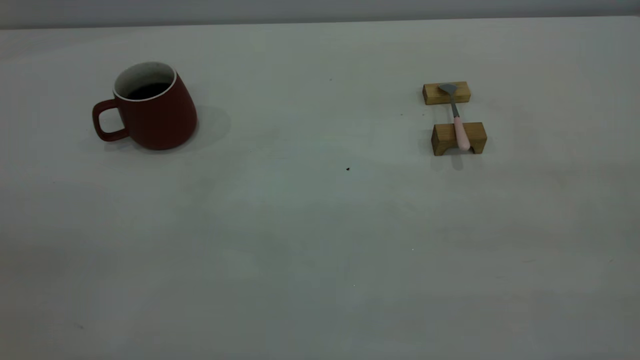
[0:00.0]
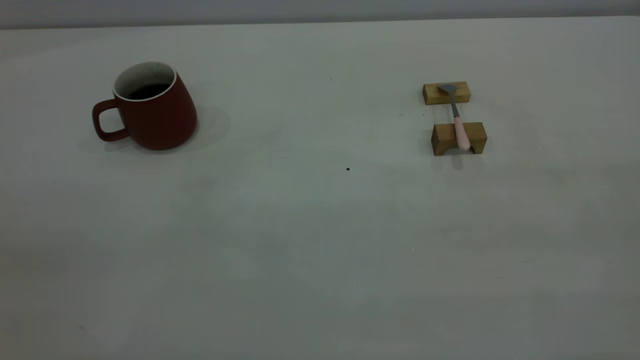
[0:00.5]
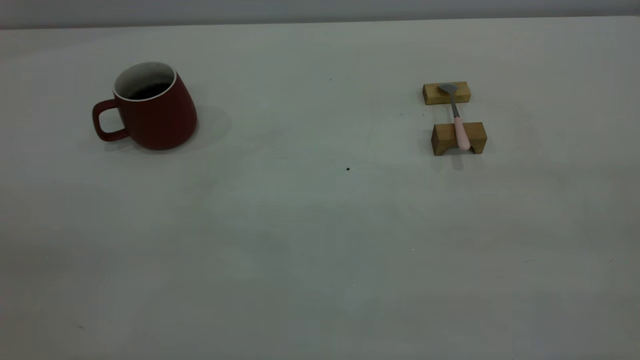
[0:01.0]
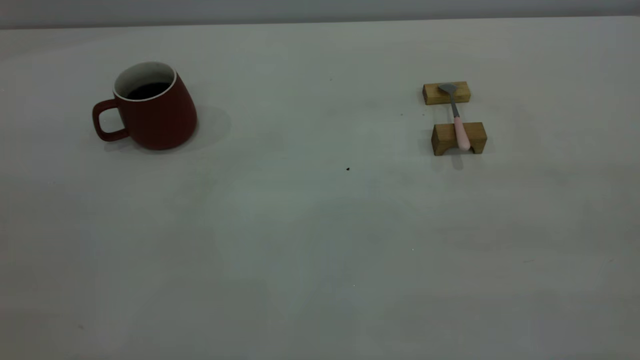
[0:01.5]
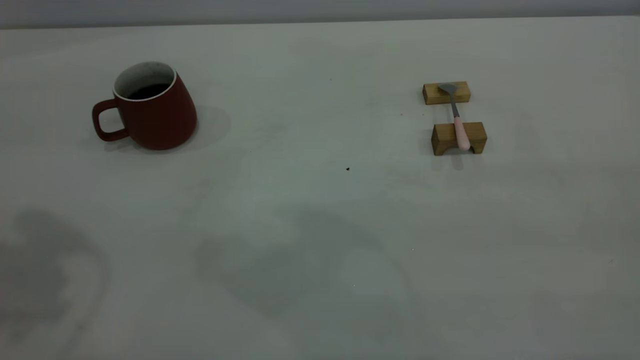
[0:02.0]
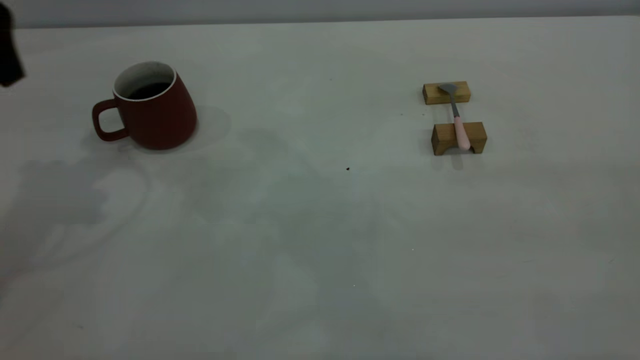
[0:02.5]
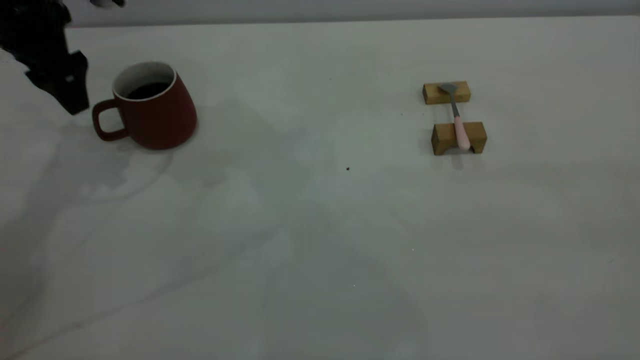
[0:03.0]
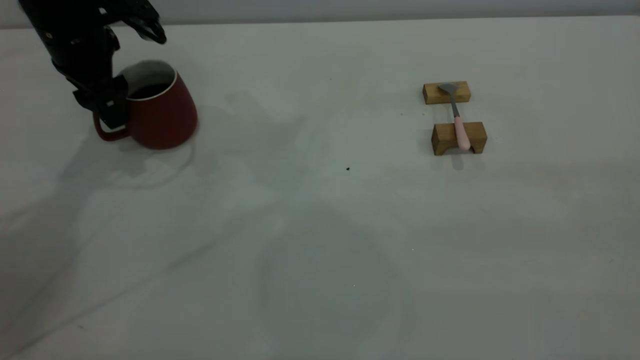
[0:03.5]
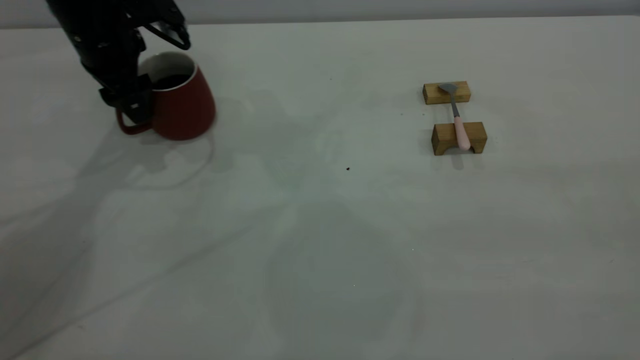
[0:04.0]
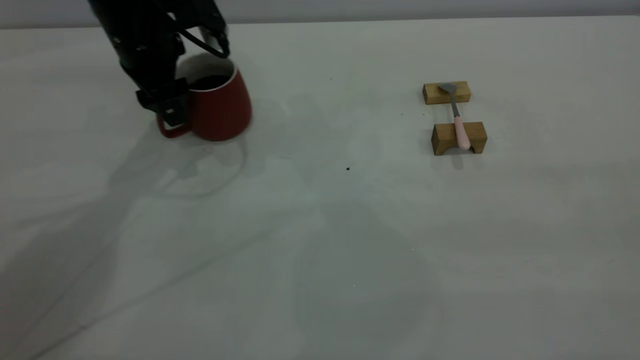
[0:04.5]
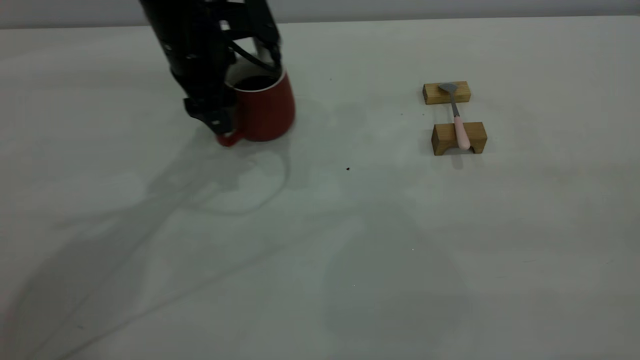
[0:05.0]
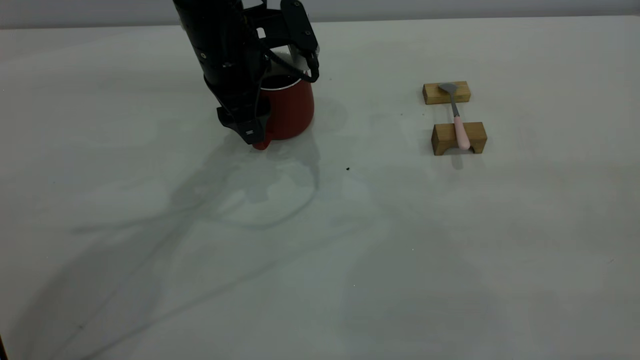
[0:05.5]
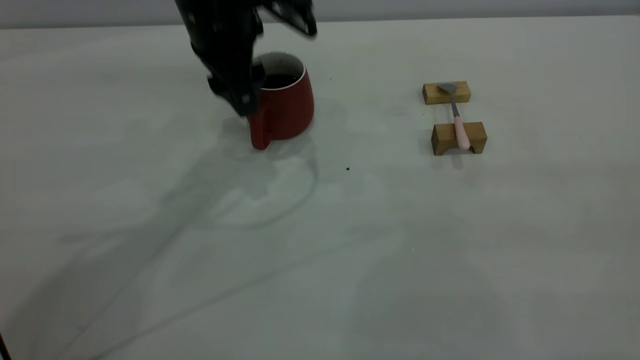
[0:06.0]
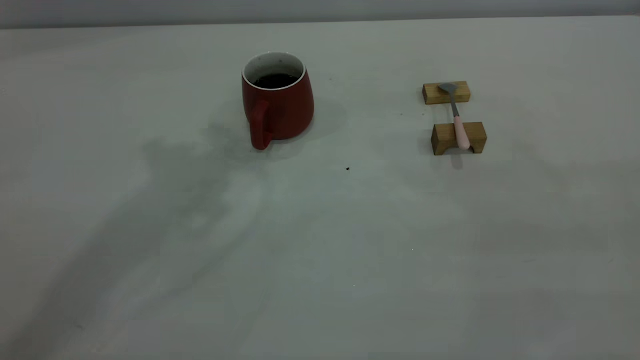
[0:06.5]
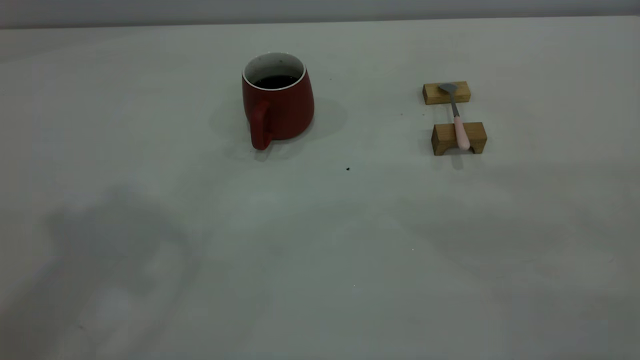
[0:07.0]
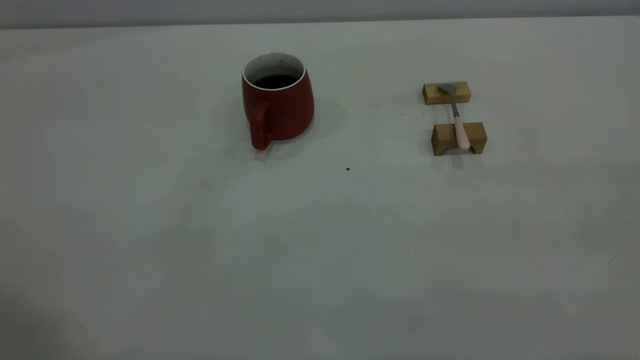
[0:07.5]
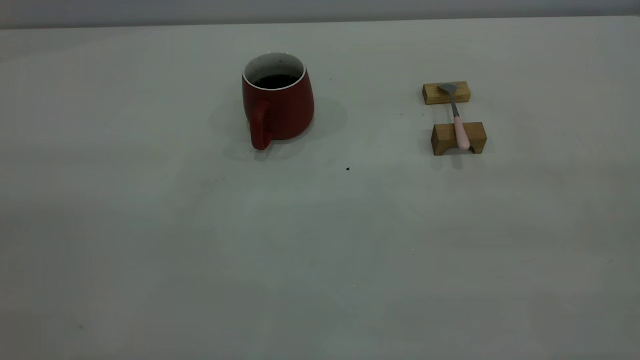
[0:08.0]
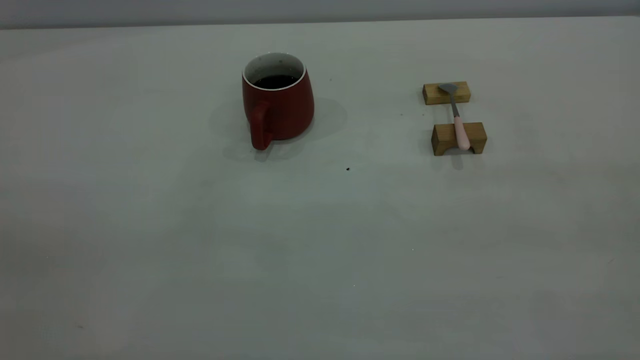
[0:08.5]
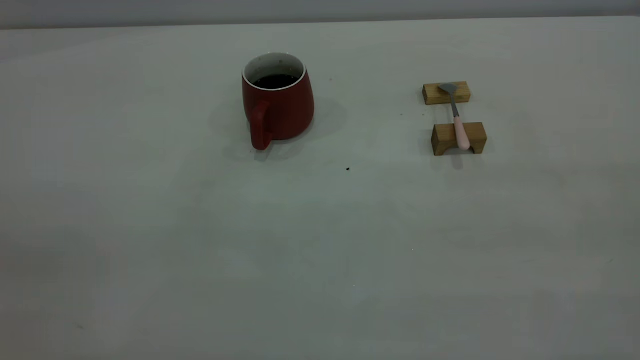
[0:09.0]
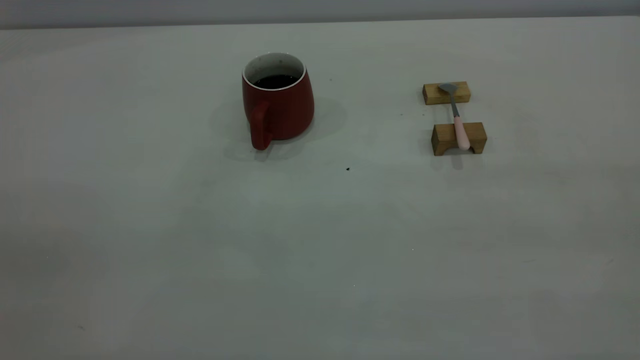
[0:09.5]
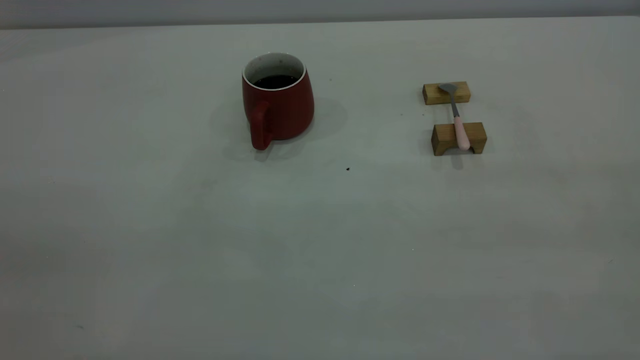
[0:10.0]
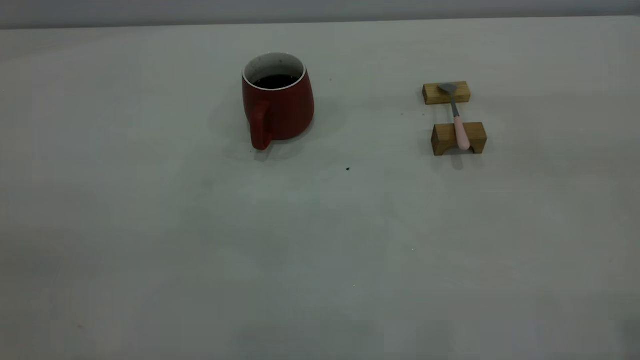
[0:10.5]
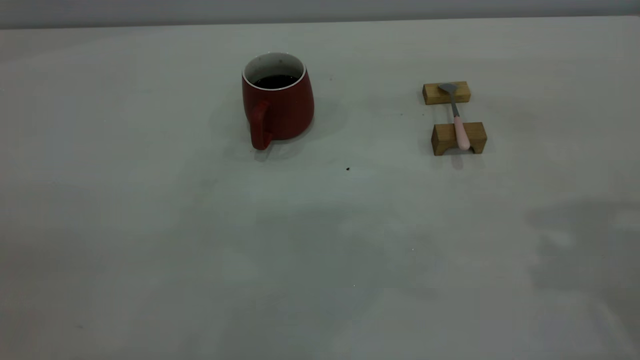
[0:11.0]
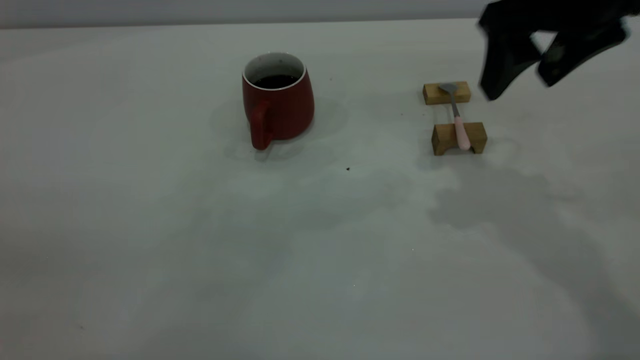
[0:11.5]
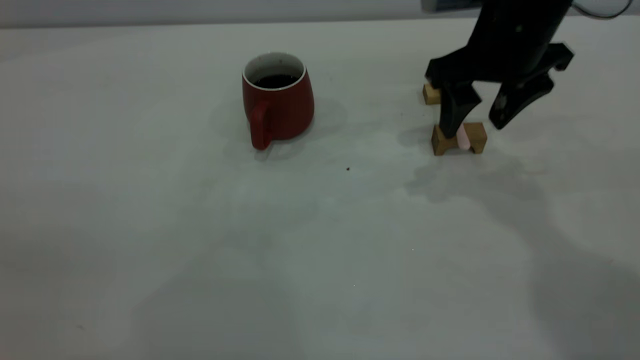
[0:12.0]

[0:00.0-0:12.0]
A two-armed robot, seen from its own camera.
Step, 0:00.0 to 0:06.0: Move the cup with coffee to the center of view.
0:02.0 to 0:04.0: The left gripper moves forward and downward, roughly 30 cm.
0:04.0 to 0:06.0: The left gripper is displaced to the right by approximately 15 cm.
0:06.0 to 0:08.0: The left gripper heads backward, to the left and upward, covering some 50 cm.
0:10.0 to 0:12.0: The right gripper is displaced forward and downward by approximately 40 cm, and opens.

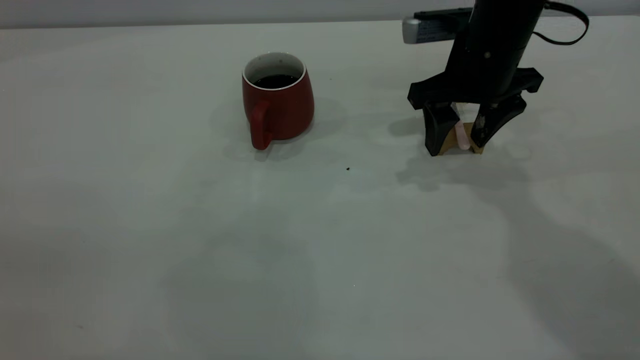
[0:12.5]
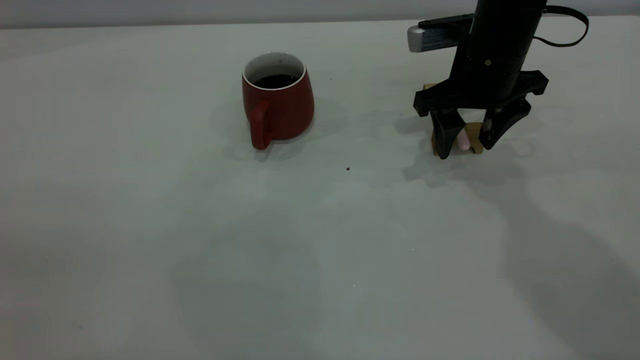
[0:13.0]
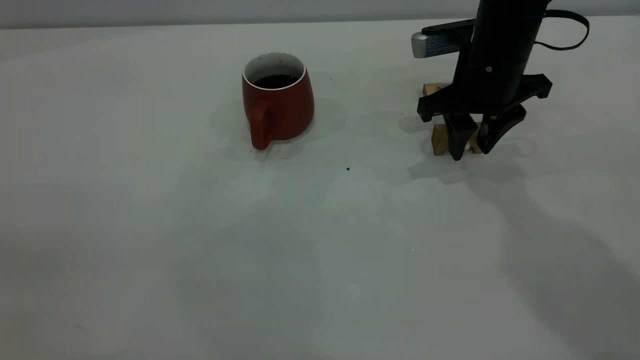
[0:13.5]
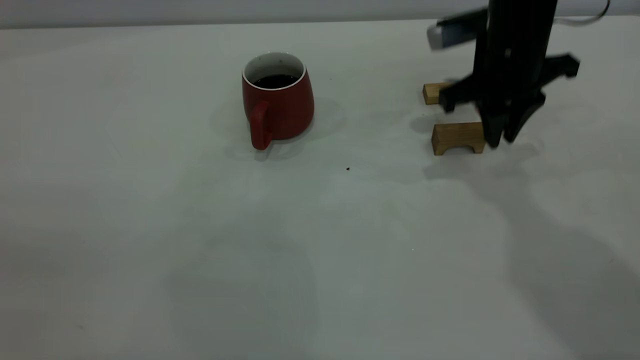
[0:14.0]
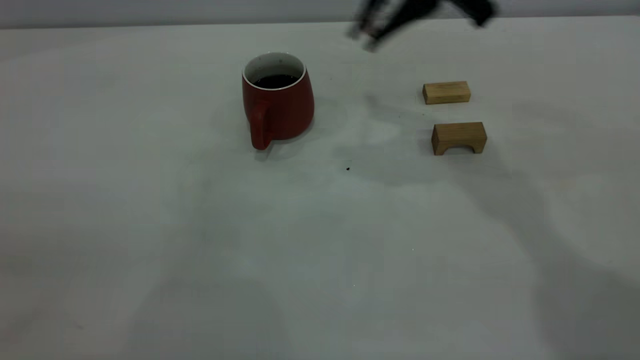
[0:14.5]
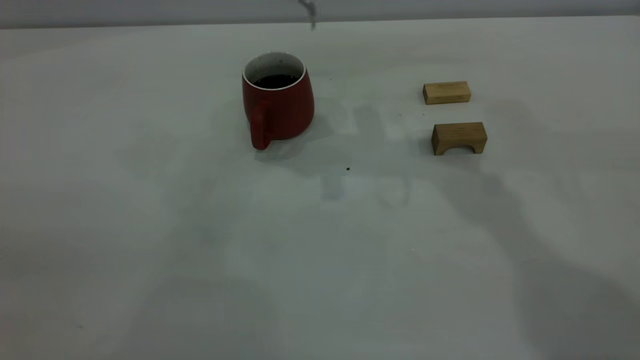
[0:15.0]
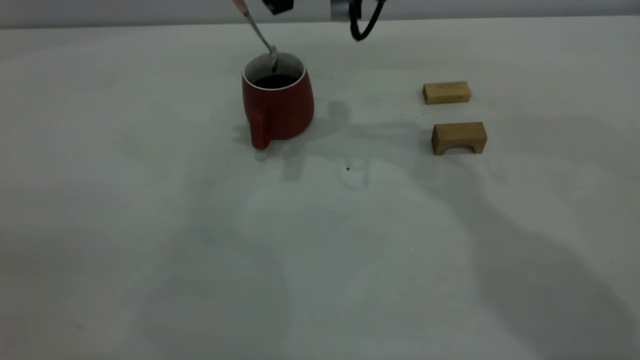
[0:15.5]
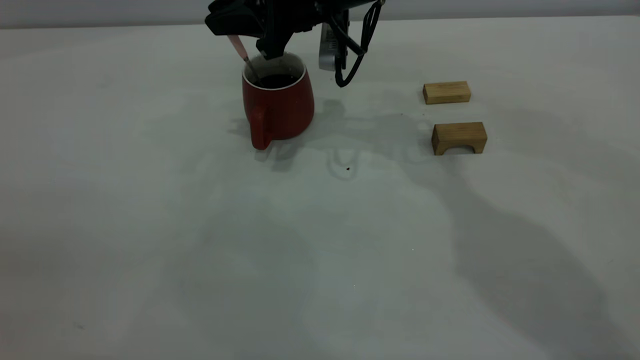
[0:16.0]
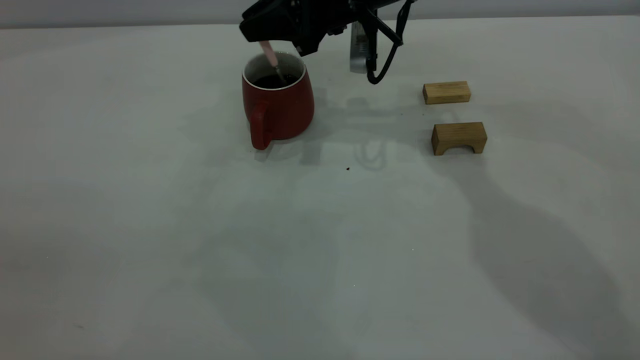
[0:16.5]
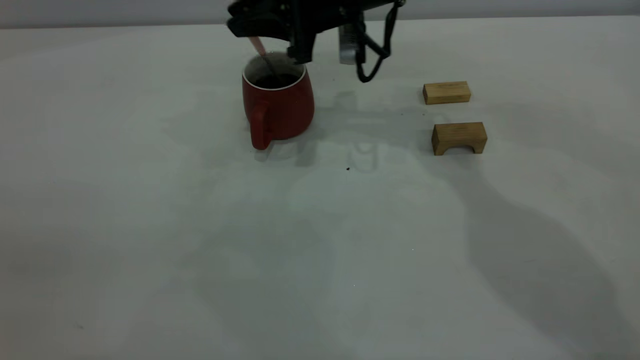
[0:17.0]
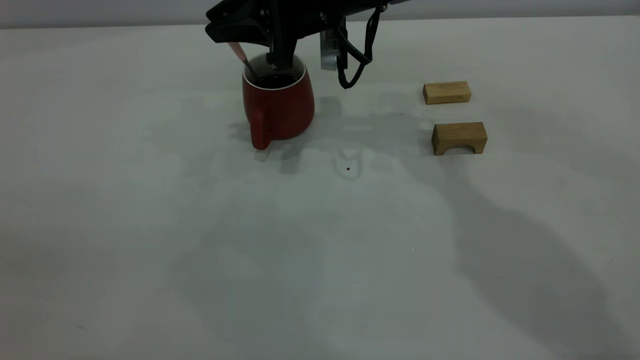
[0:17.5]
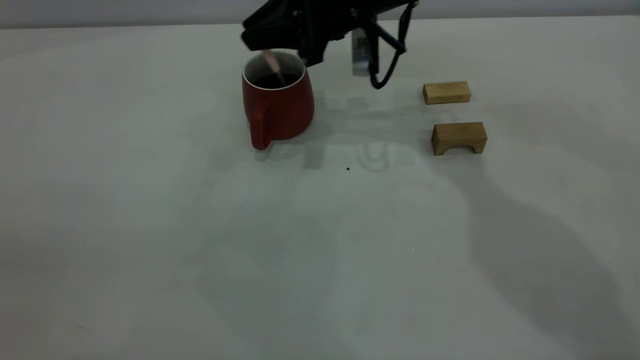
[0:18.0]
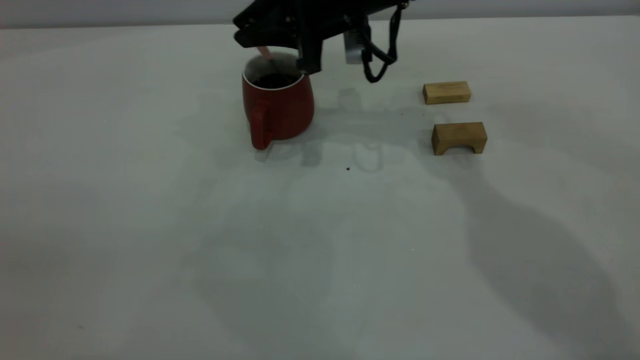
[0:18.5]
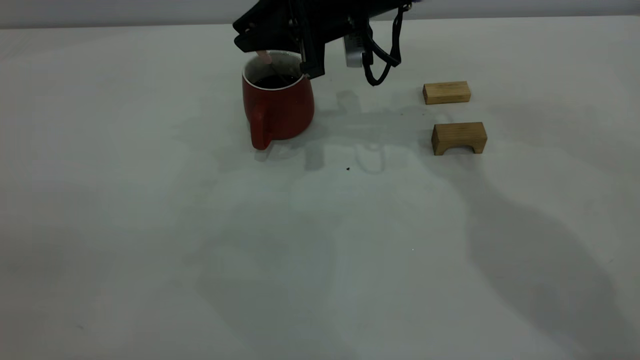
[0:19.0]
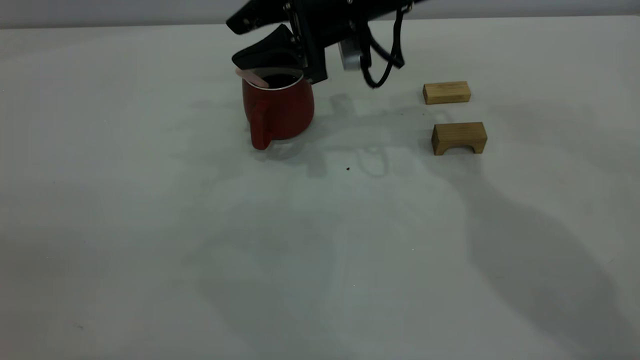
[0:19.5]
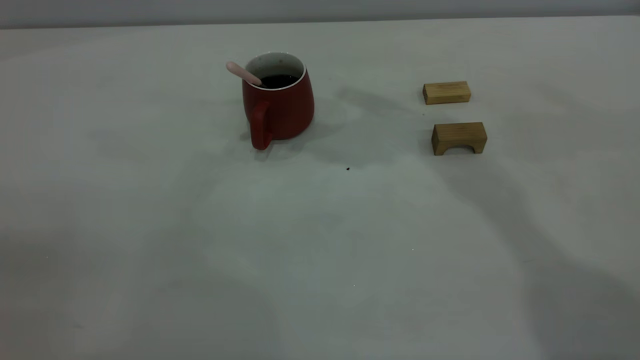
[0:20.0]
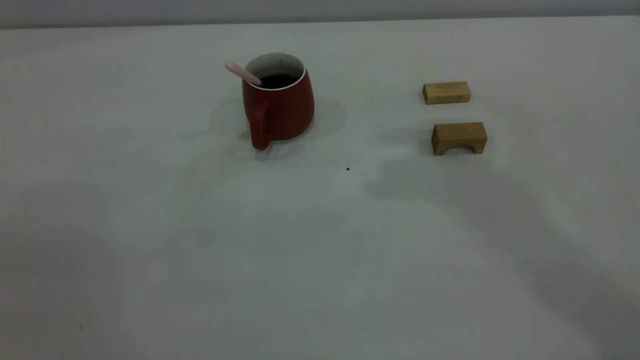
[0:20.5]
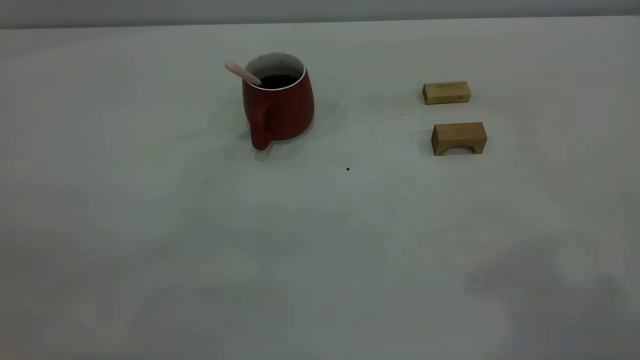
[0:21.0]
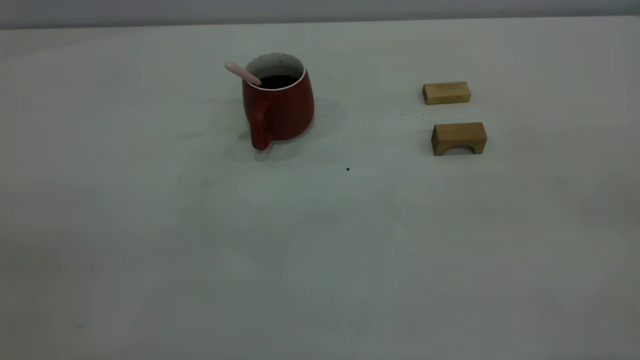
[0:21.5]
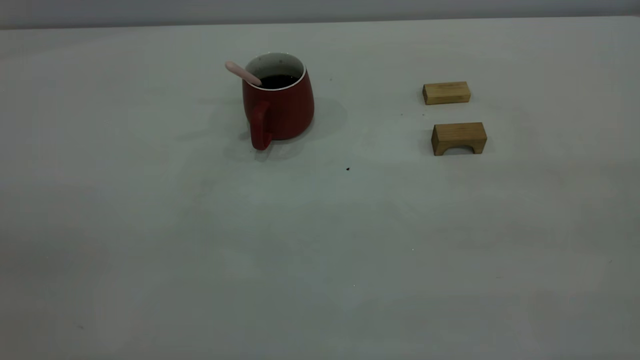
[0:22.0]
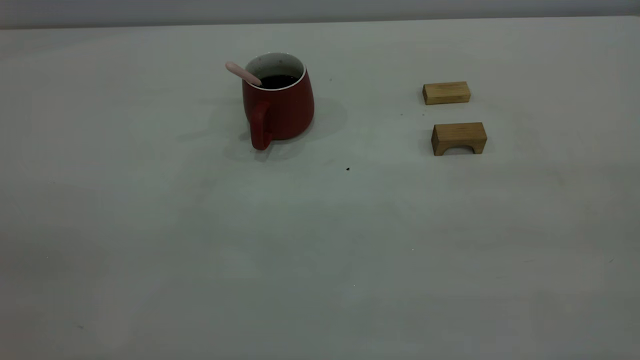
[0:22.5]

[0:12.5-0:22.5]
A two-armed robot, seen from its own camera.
Step, 0:14.5 to 0:19.5: Stir the coffee in the cup.
0:12.5 to 0:14.5: The right gripper shifts roughly 15 cm upward, and closes its fingers.
0:14.5 to 0:16.5: The right gripper moves downward, forward and to the left, roughly 15 cm.
0:18.5 to 0:20.5: The right gripper moves upward and backward, some 40 cm, and opens, then closes again.
